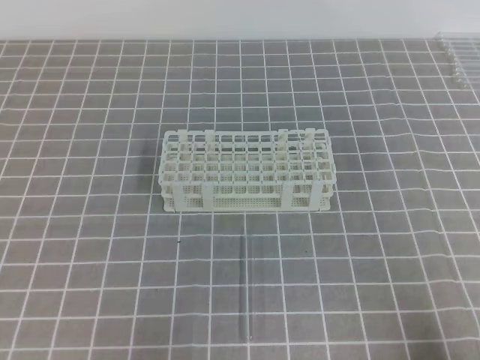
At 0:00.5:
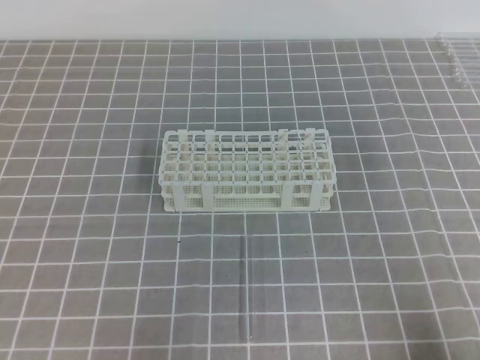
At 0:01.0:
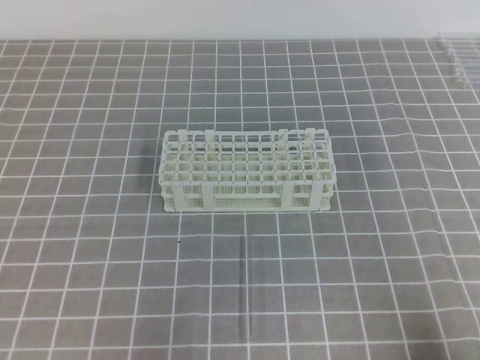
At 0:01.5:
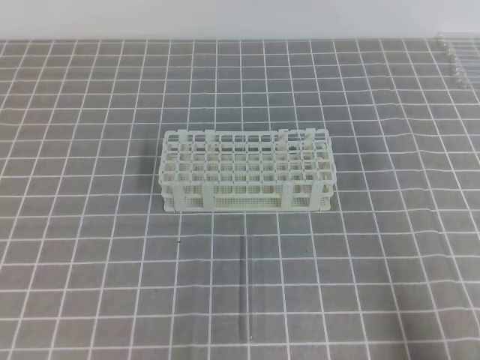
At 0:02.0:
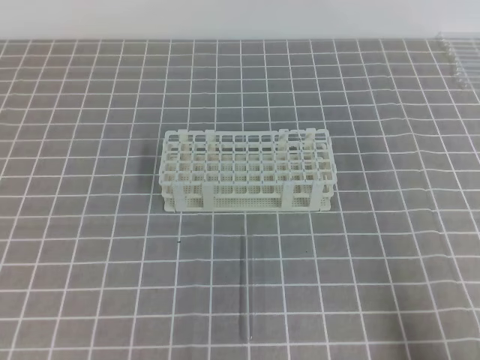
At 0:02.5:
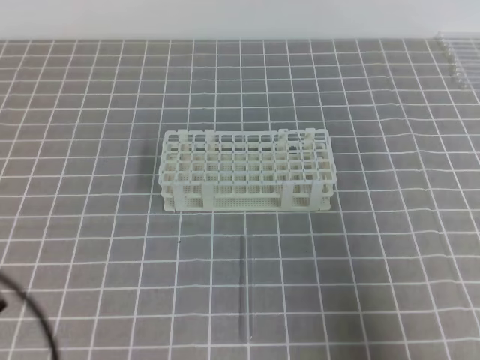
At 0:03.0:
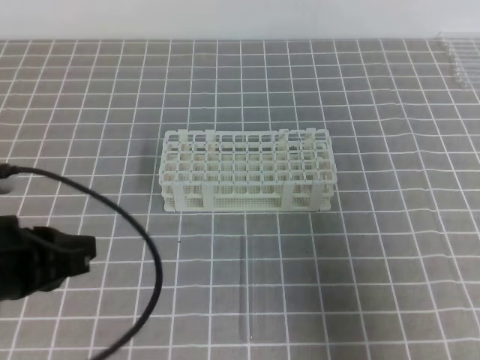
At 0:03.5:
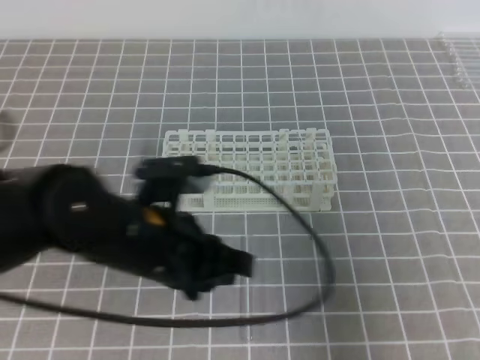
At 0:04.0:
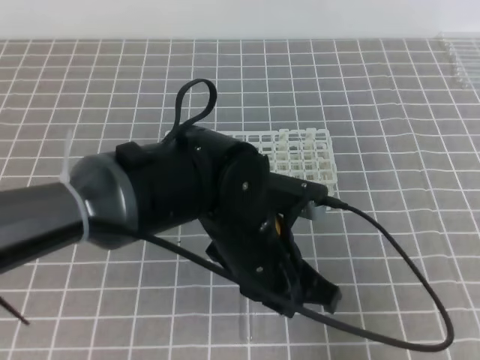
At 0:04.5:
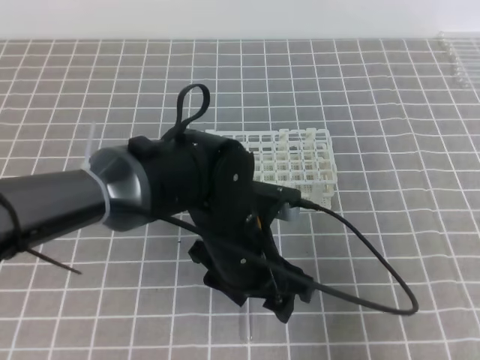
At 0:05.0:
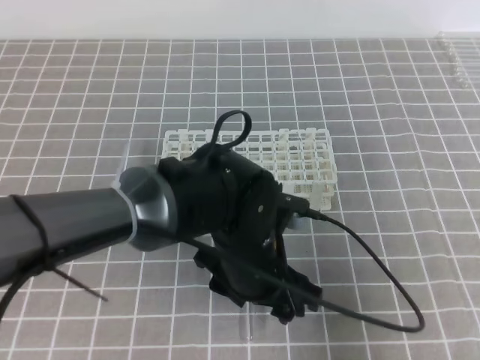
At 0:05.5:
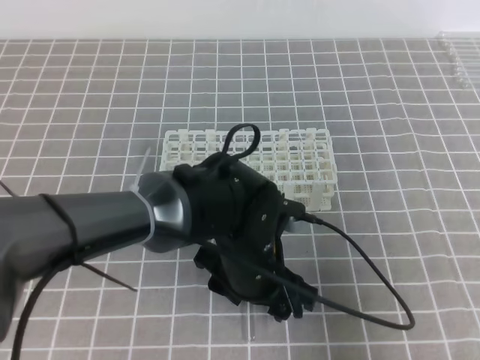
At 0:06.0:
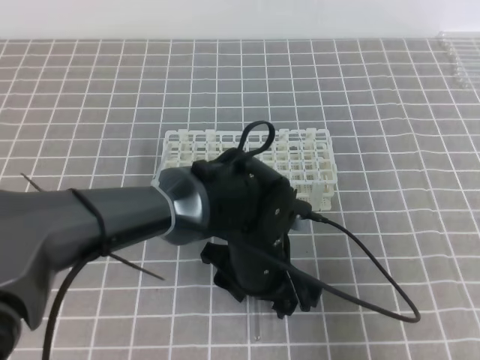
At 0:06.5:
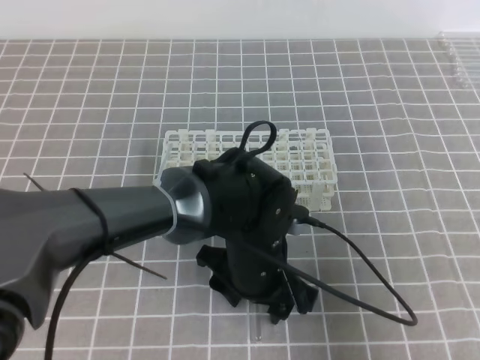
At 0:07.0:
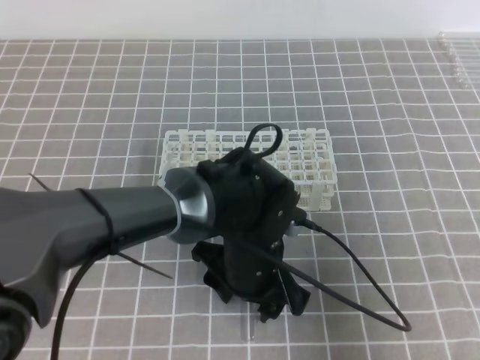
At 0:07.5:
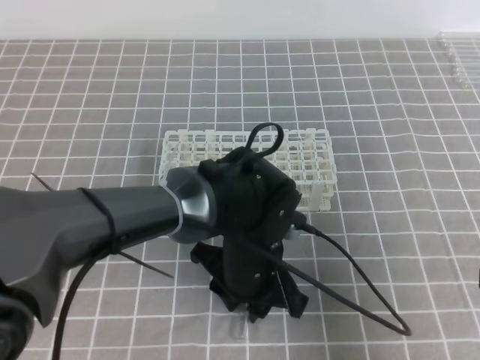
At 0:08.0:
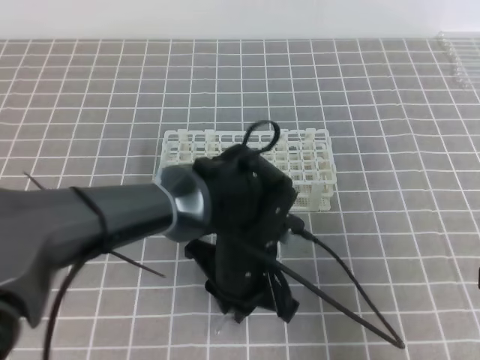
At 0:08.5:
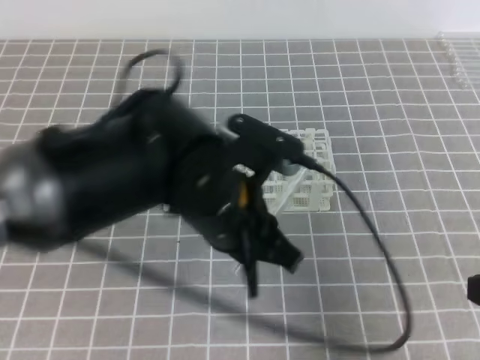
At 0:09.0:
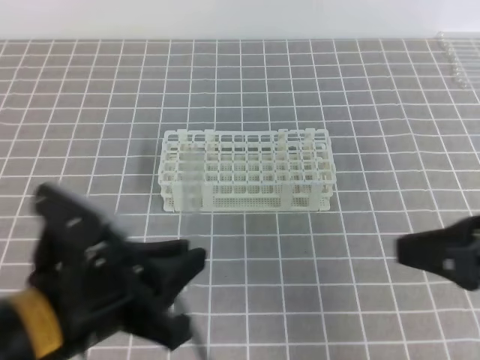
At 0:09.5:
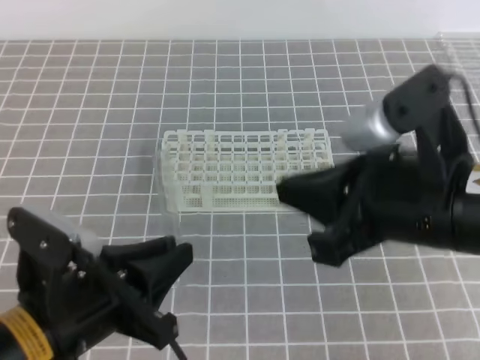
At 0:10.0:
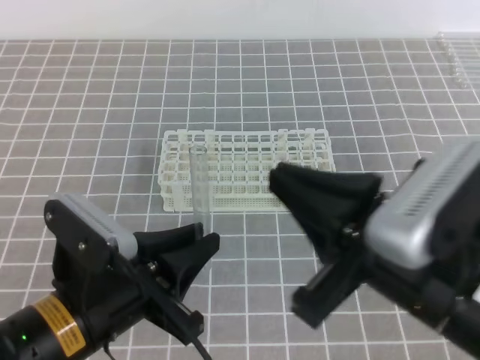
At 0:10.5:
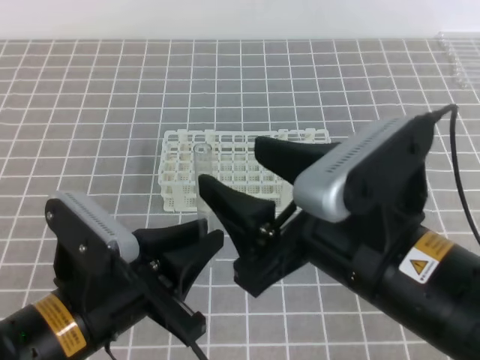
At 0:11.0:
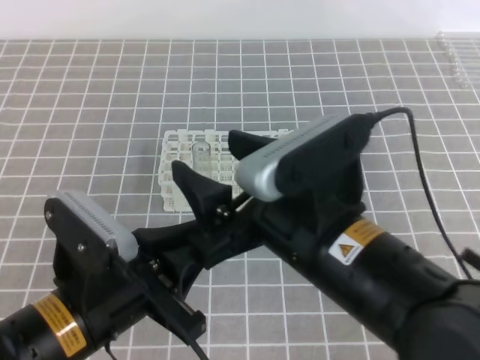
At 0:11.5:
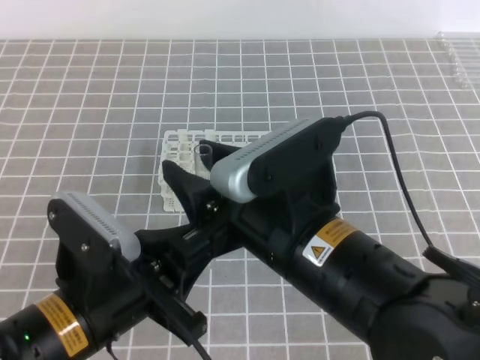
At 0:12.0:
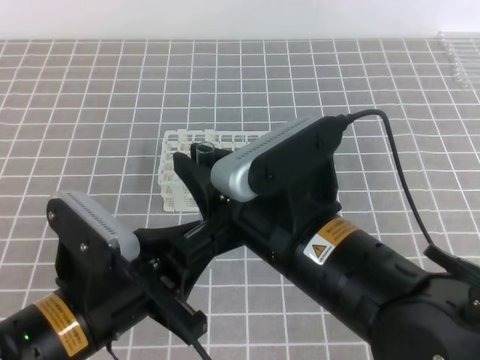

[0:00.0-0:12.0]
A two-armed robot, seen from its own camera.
0:02.0 to 0:04.0: The left gripper travels to the right and forward by some 30 cm; the right gripper shifts roughly 10 cm upward and forward.
0:04.0 to 0:06.0: The left gripper goes some 5 cm downward, and opens up.
0:06.0 to 0:08.0: The left gripper closes up.
0:08.0 to 0:10.0: The left gripper travels to the left, backward and upward by about 20 cm; the right gripper moves to the left and upward, approximately 15 cm.
0:10.0 to 0:12.0: The right gripper heads to the left, covering roughly 10 cm, and opens and closes again.

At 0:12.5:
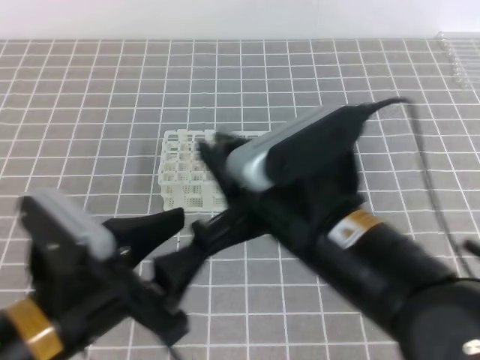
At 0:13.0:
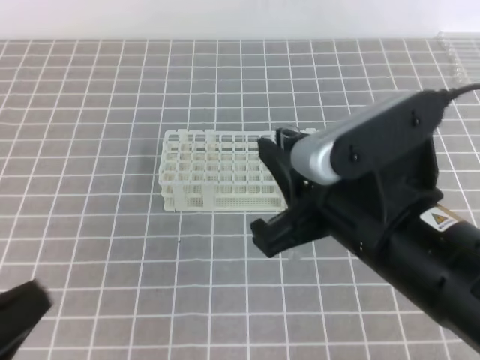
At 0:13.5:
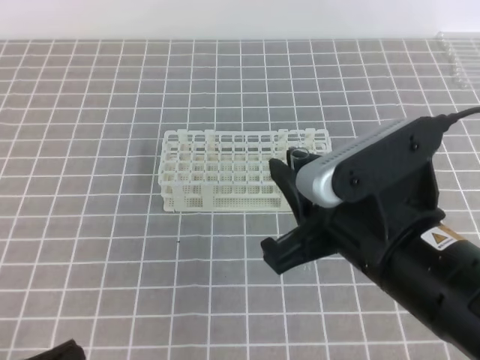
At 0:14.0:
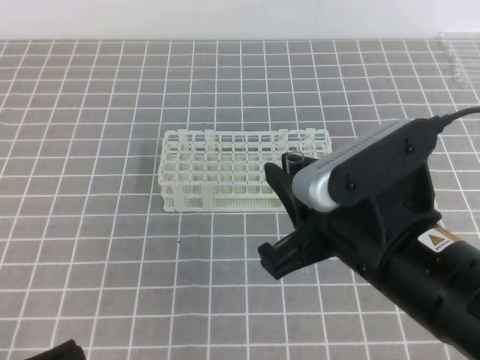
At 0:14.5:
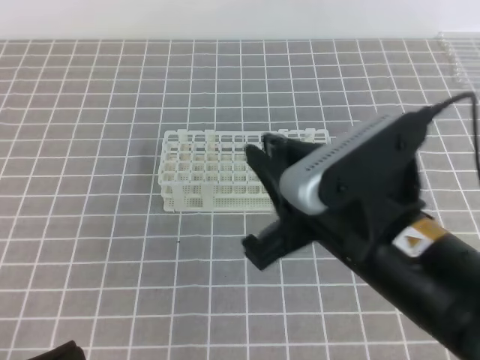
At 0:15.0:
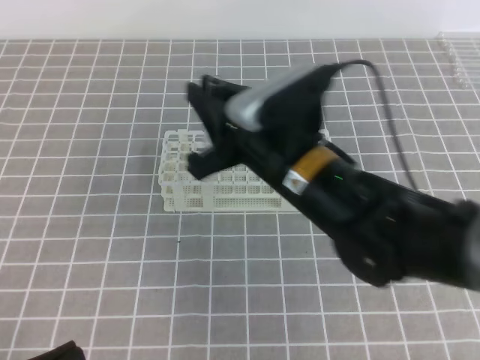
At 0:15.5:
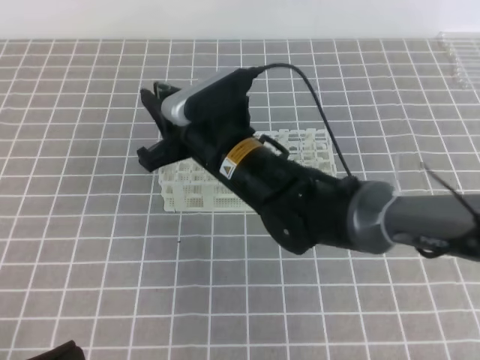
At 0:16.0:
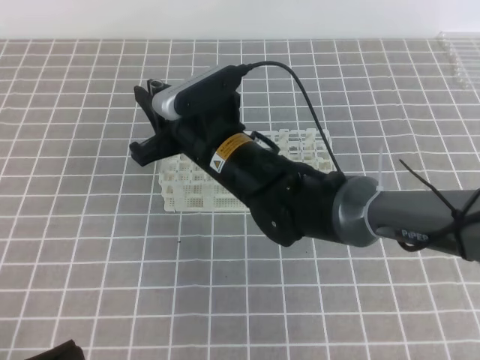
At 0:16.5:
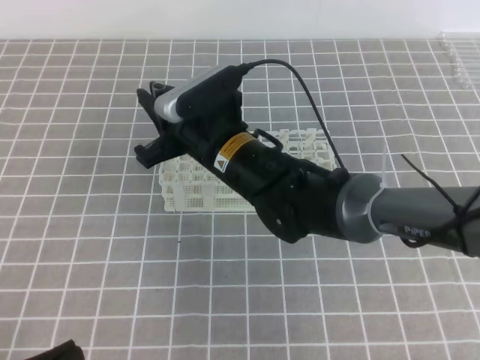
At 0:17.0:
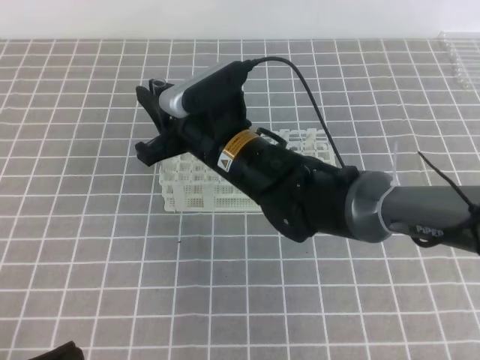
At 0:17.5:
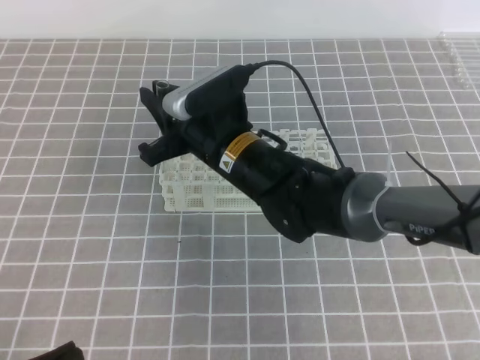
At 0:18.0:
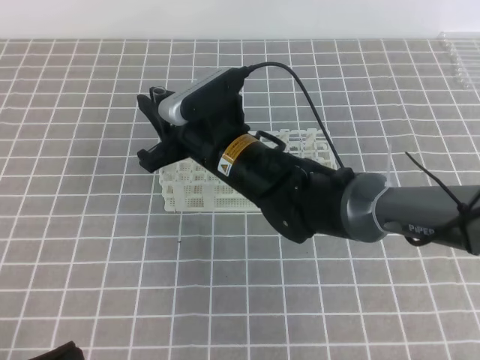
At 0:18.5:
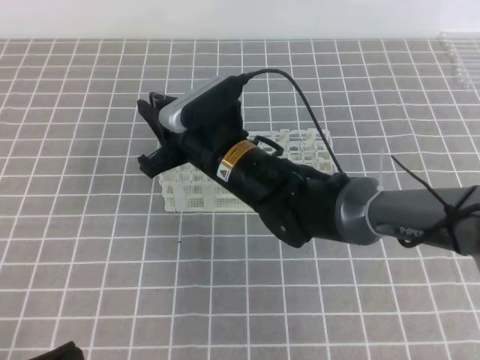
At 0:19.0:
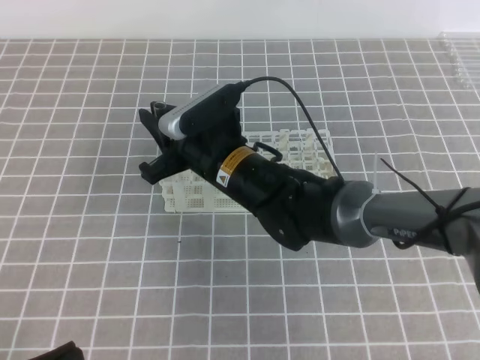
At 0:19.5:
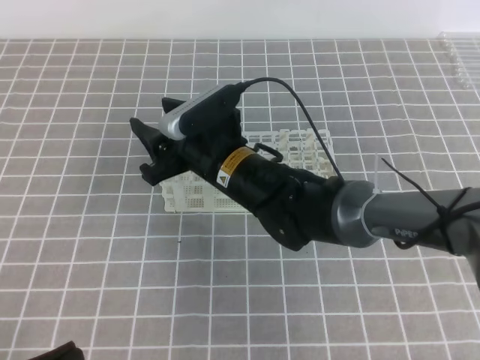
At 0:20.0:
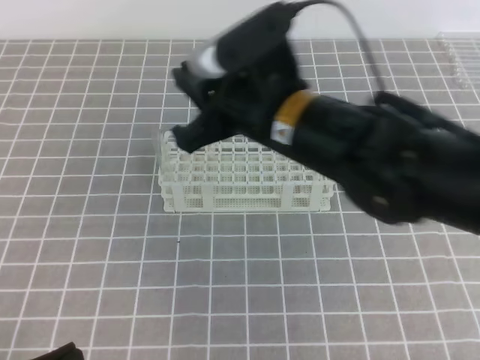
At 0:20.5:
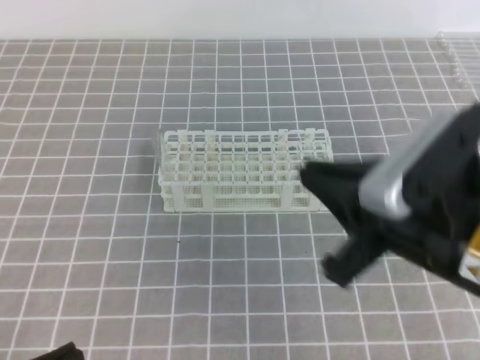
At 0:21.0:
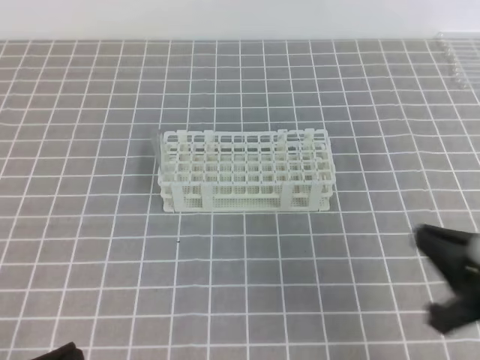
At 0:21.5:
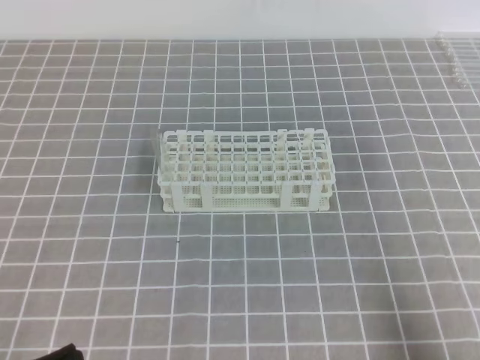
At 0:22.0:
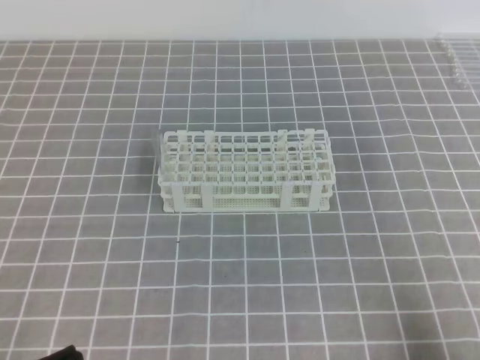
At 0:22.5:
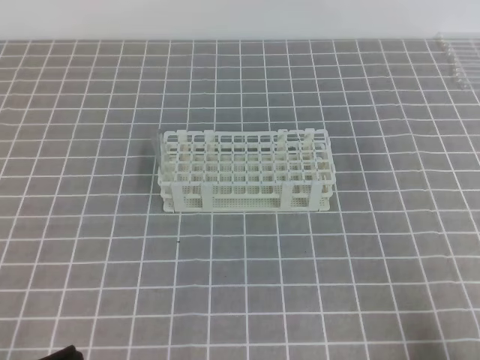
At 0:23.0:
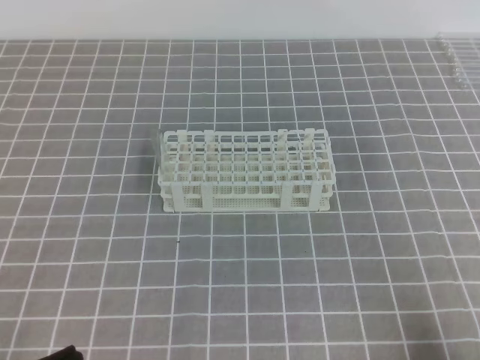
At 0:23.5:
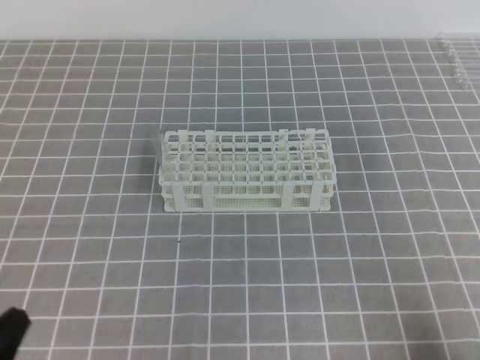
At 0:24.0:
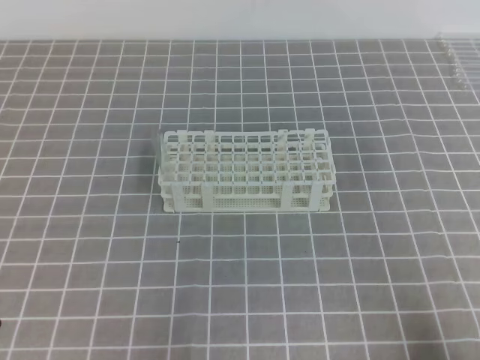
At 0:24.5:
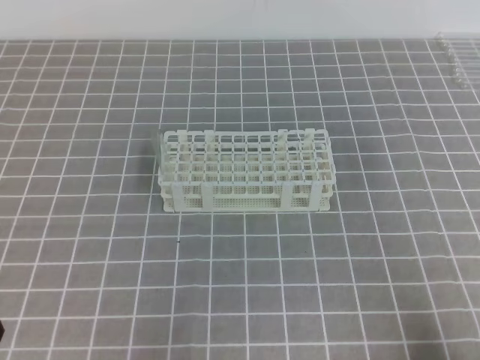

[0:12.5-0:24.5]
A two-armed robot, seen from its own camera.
0:12.5 to 0:14.5: The left gripper shifts roughly 15 cm to the left, backward and downward, and closes.
0:14.5 to 0:16.5: The right gripper is displaced forward, to the left and downward by roughly 25 cm.
0:16.5 to 0:18.5: Both grippers stay put.
0:18.5 to 0:20.5: The right gripper shifts some 25 cm to the right, backward and upward, and opens, then closes again.
0:20.5 to 0:22.5: The right gripper shifts about 25 cm to the right, downward and backward.
